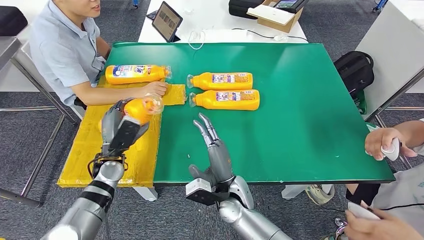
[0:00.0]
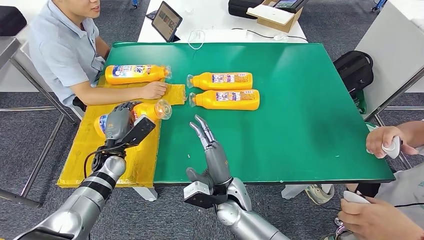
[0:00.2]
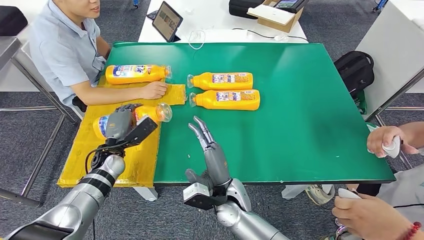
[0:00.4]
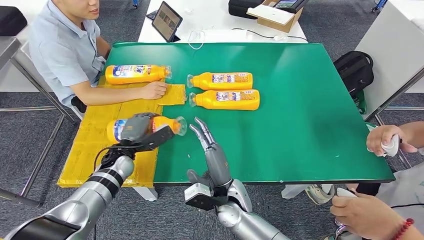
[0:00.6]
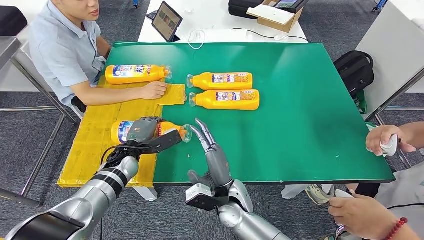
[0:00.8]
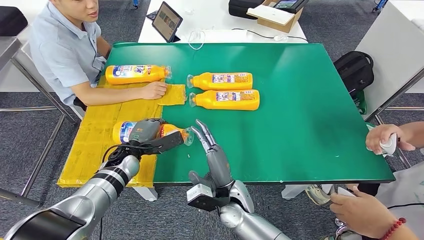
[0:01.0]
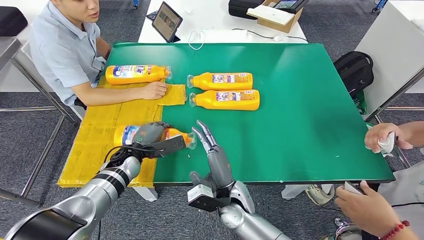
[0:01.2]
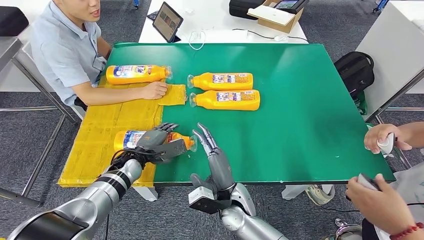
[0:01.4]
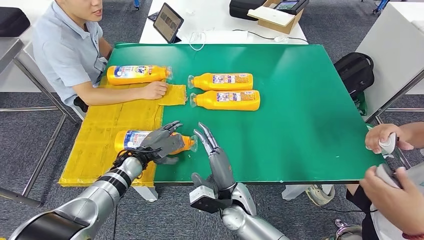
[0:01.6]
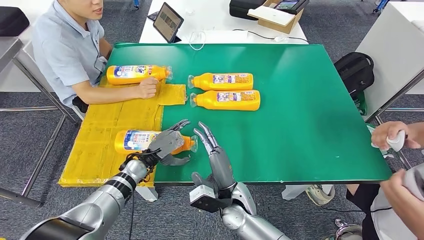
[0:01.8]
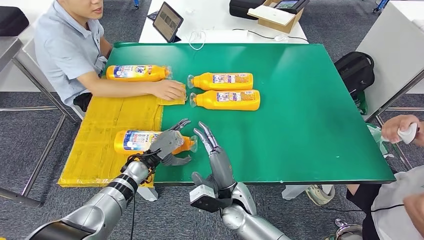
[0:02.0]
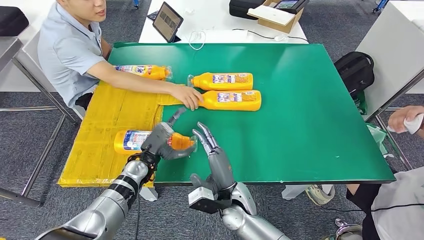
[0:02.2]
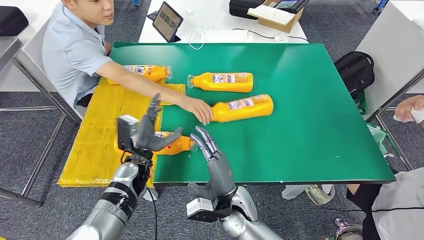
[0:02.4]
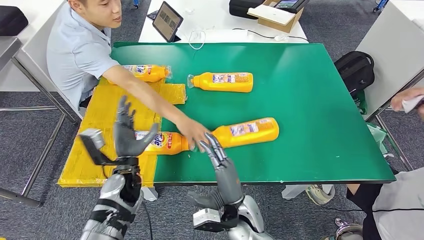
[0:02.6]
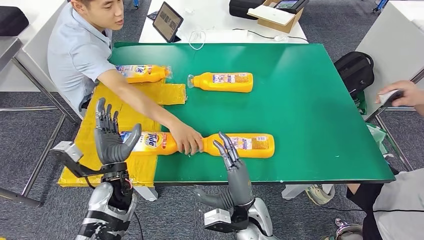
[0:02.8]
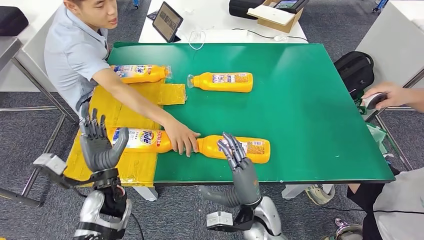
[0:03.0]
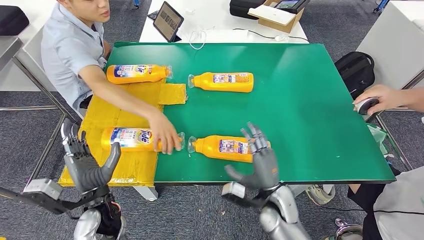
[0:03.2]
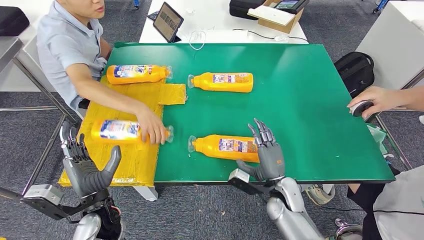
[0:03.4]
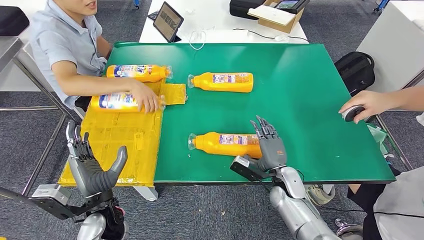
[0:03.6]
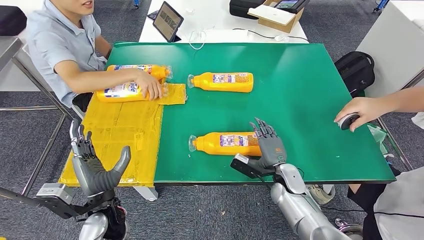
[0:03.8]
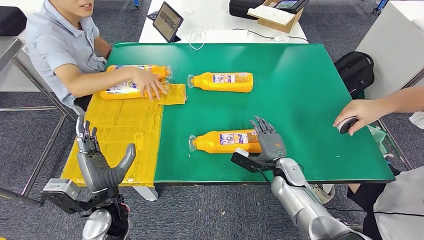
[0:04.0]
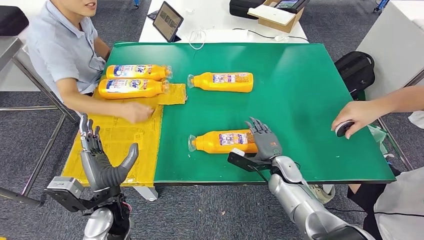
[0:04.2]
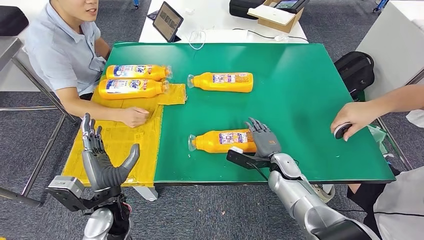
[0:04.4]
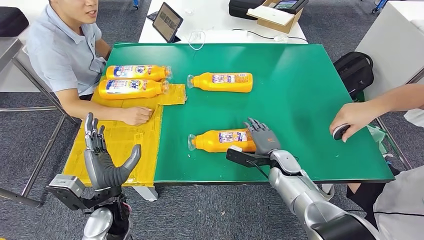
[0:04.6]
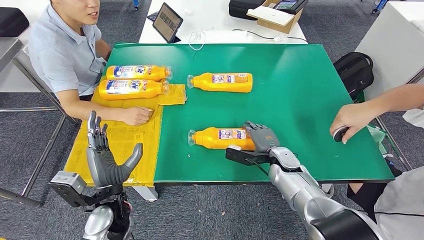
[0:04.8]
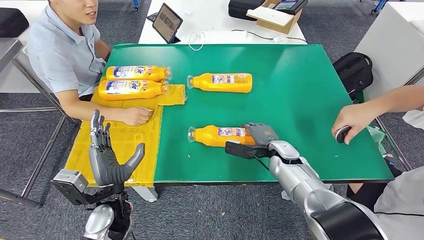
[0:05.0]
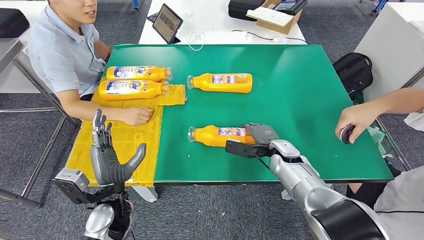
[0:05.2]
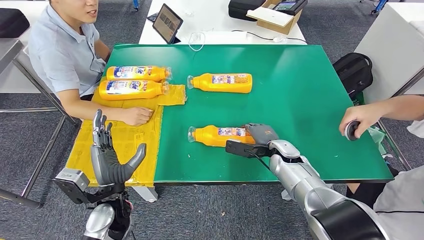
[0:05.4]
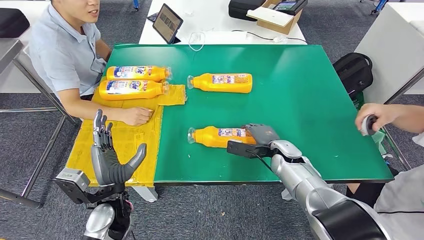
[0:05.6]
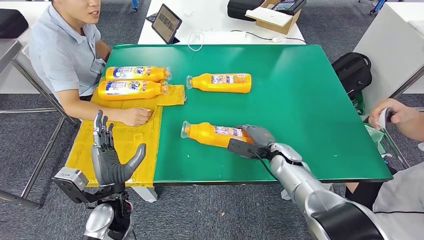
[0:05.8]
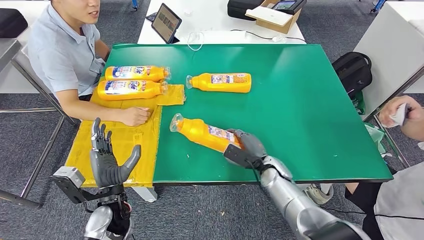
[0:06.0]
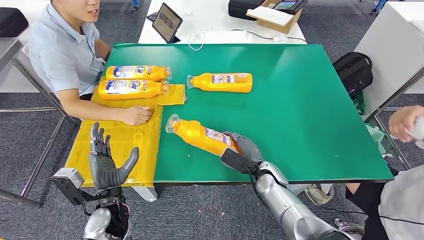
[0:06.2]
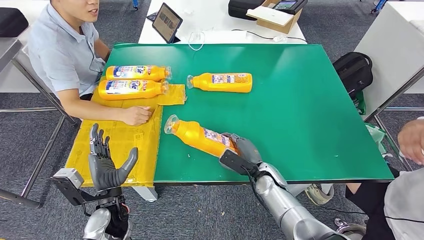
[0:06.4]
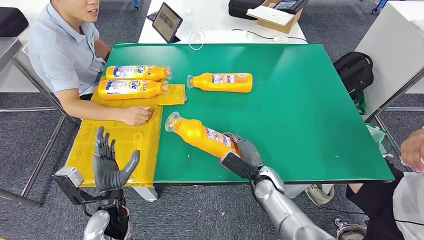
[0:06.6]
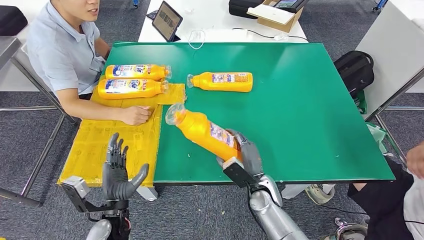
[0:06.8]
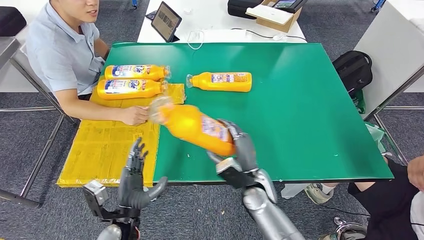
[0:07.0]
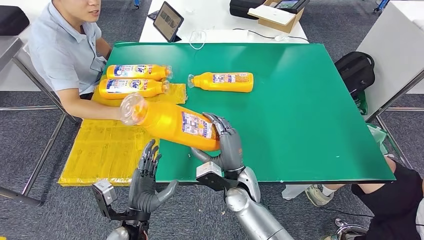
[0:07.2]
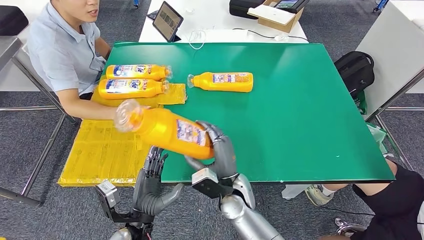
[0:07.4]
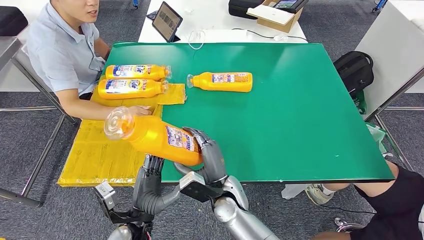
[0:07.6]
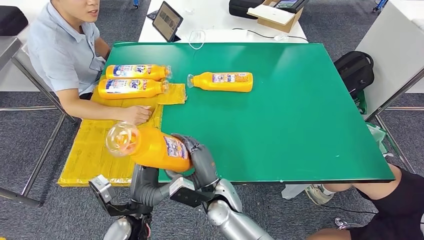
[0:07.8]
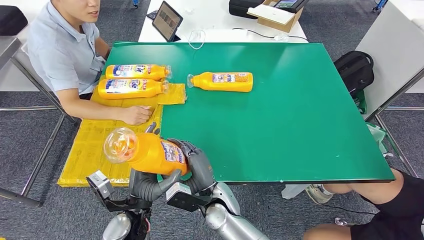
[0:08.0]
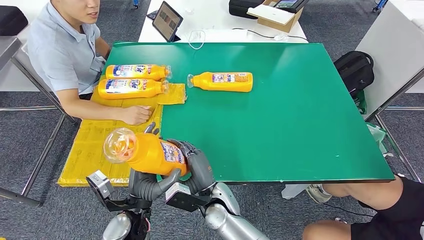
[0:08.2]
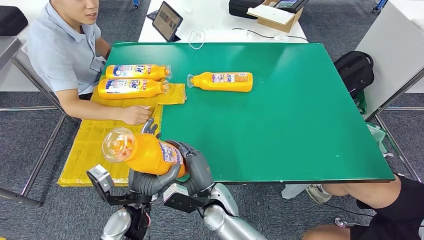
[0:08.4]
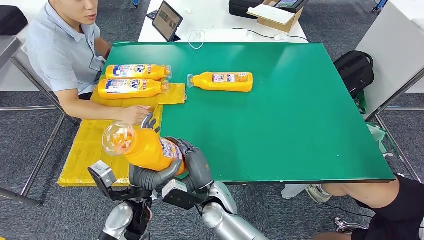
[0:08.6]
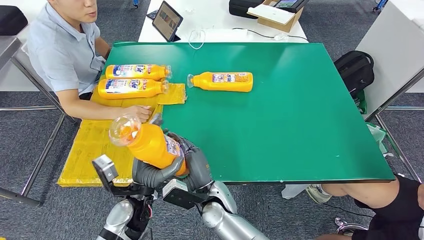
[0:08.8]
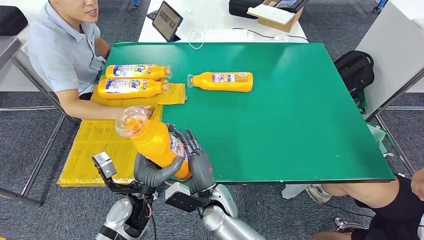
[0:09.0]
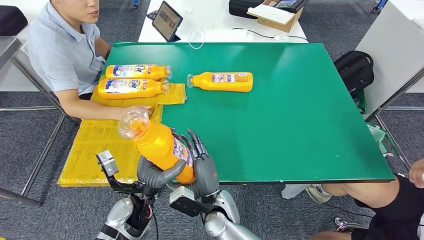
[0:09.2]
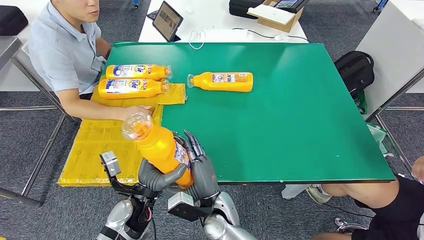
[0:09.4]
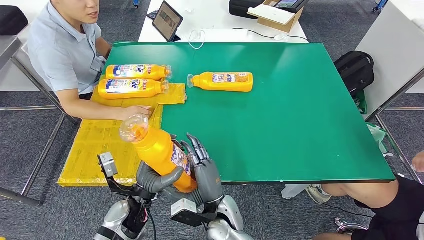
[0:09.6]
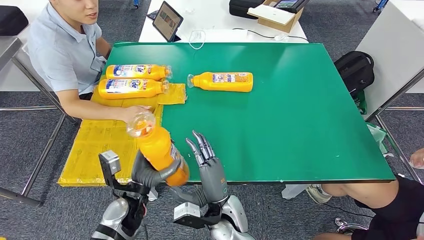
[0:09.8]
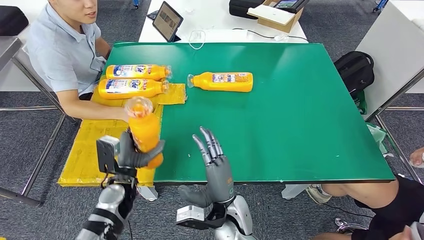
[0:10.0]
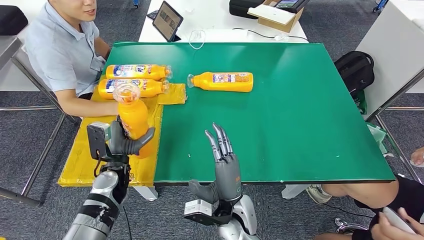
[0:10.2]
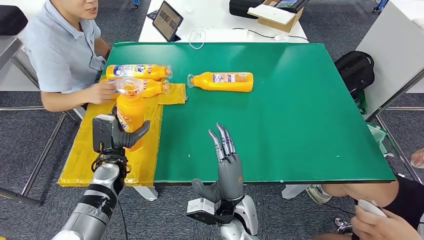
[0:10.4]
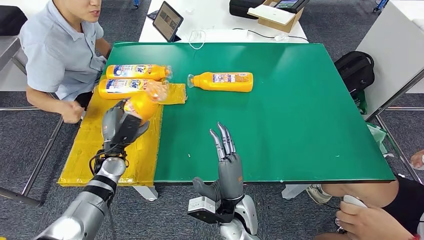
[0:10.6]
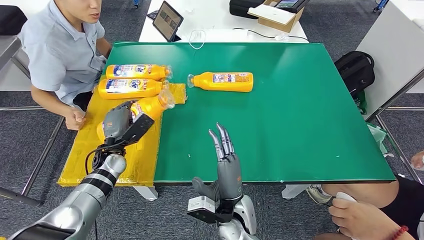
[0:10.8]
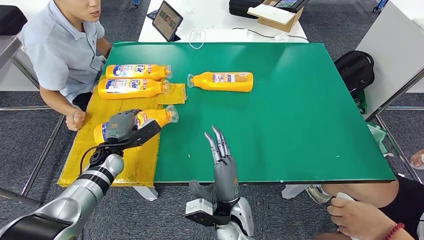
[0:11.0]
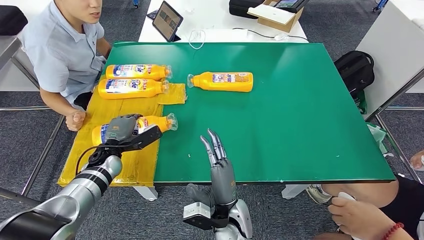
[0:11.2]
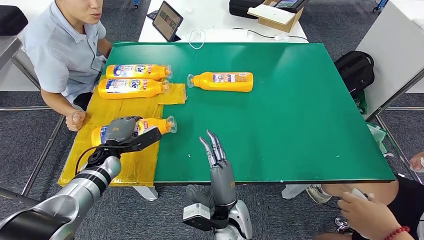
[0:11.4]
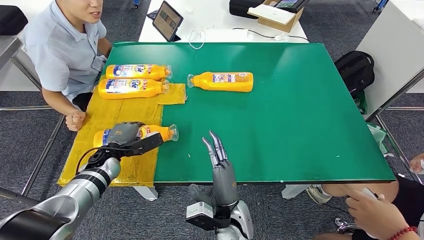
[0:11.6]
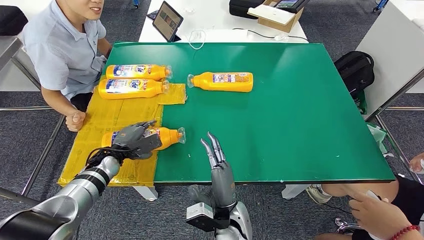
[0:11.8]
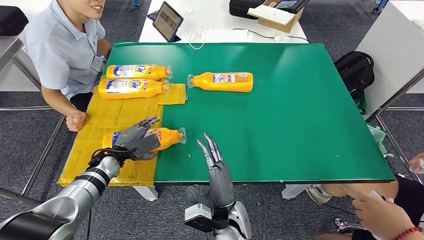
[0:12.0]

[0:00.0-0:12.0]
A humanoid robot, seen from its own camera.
Step, 0:00.0 to 0:02.8: Flip the fast-moving consumer goods bottle to the front side.
Step, 0:03.0 to 0:08.8: Pick up the fast-moving consumer goods bottle from the table.
0:07.6 to 0:09.0: The left hand shifts approximately 5 cm forward.
0:10.4 to 0:12.0: The left hand moves approximately 5 cm.

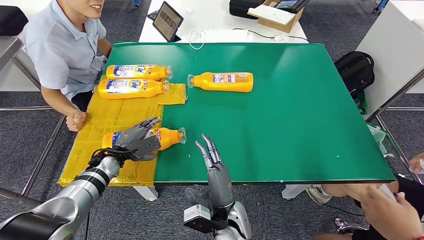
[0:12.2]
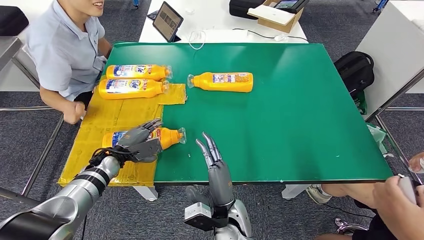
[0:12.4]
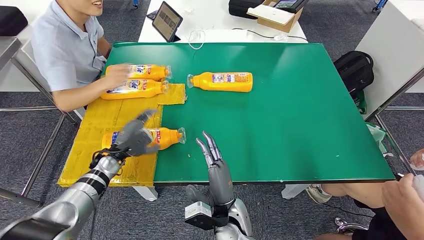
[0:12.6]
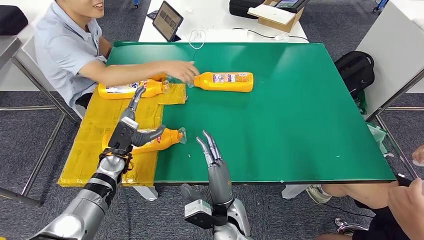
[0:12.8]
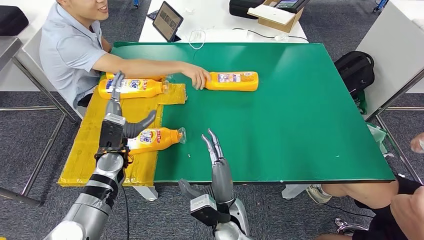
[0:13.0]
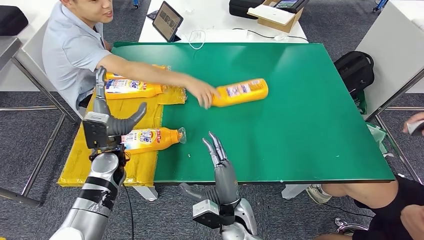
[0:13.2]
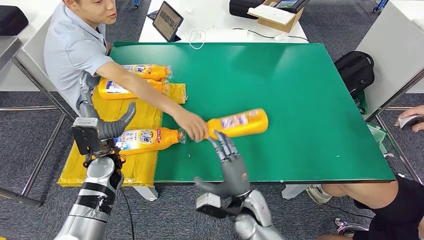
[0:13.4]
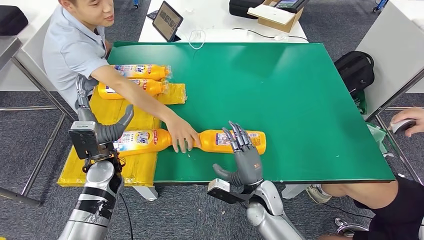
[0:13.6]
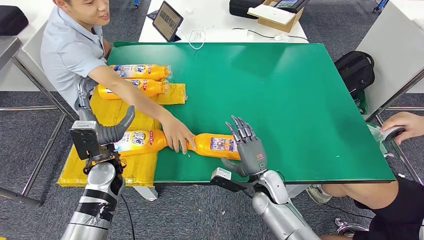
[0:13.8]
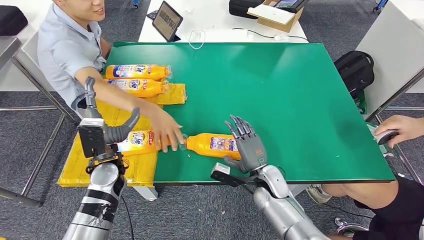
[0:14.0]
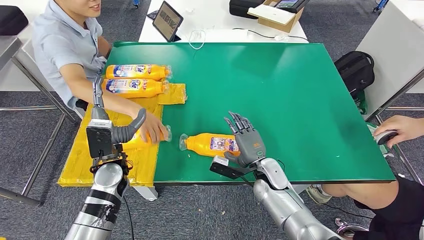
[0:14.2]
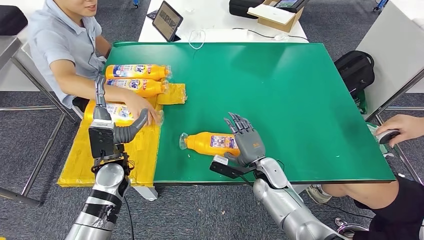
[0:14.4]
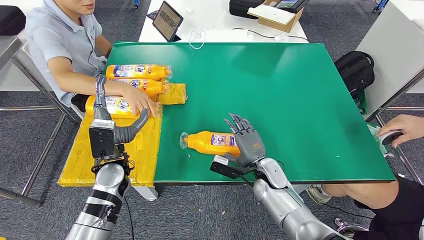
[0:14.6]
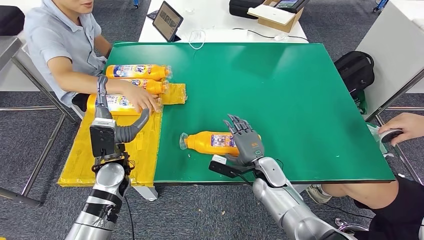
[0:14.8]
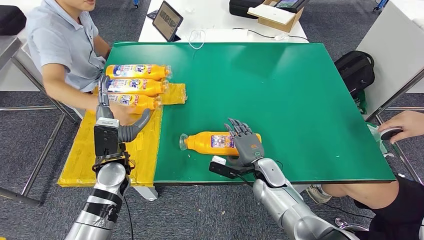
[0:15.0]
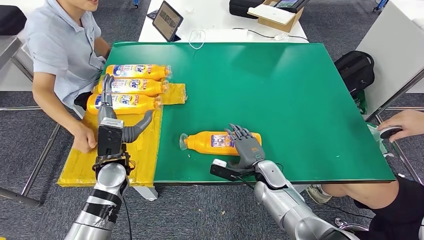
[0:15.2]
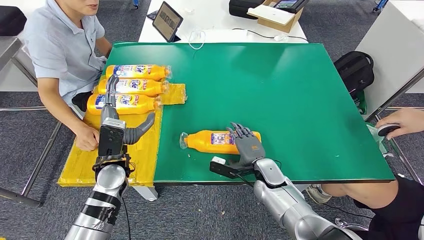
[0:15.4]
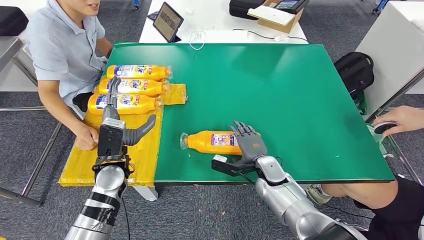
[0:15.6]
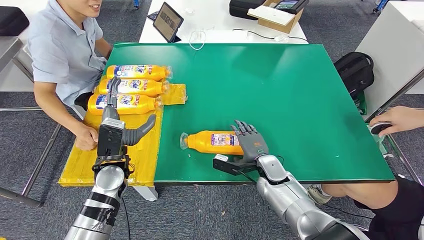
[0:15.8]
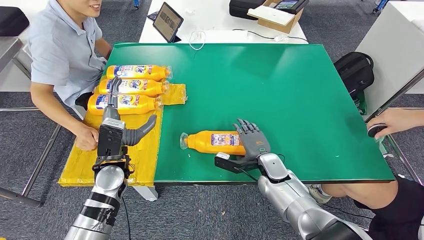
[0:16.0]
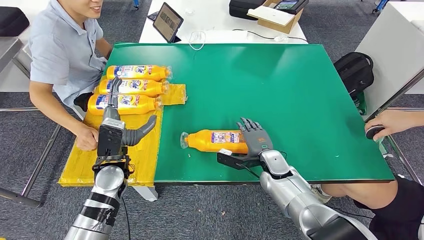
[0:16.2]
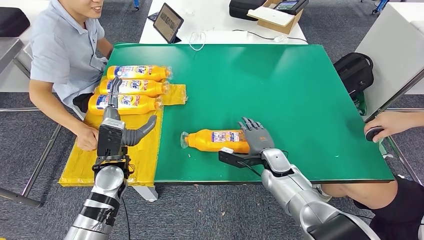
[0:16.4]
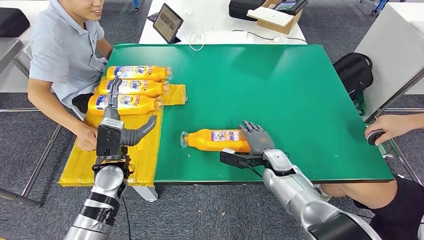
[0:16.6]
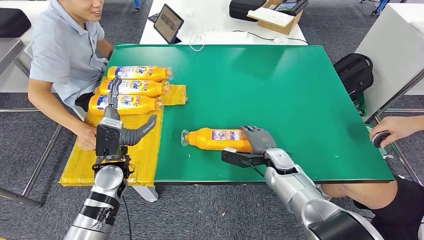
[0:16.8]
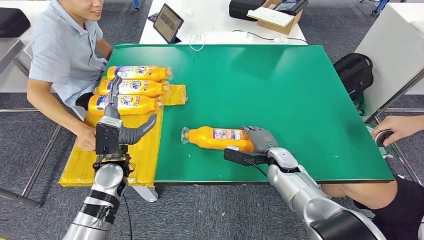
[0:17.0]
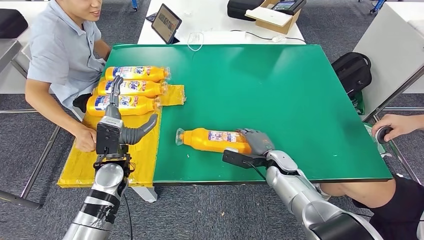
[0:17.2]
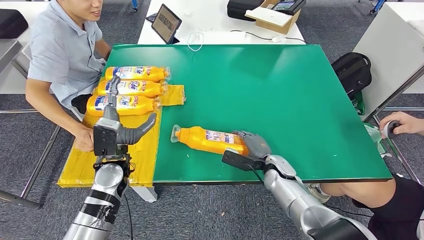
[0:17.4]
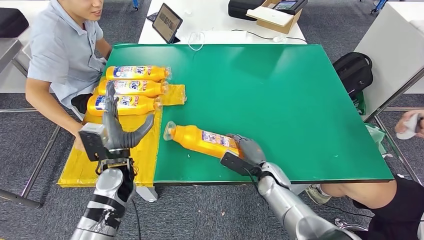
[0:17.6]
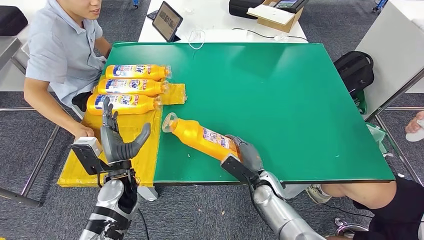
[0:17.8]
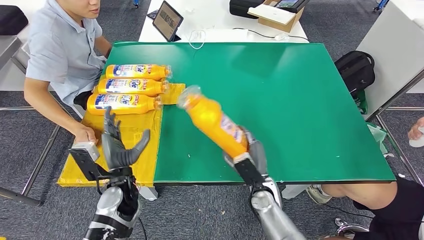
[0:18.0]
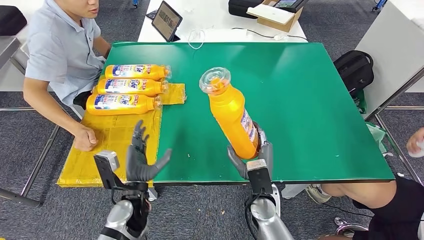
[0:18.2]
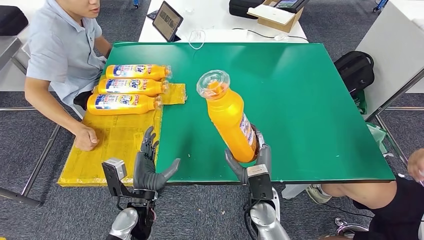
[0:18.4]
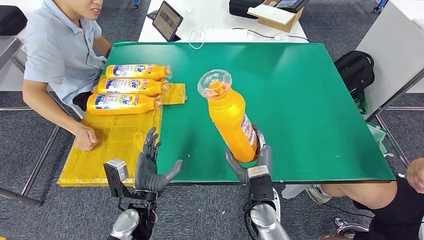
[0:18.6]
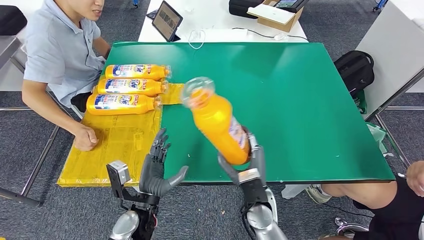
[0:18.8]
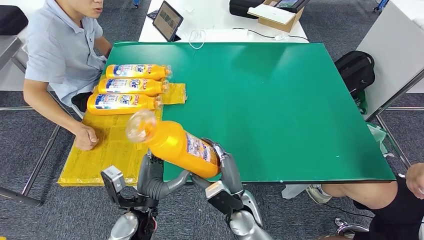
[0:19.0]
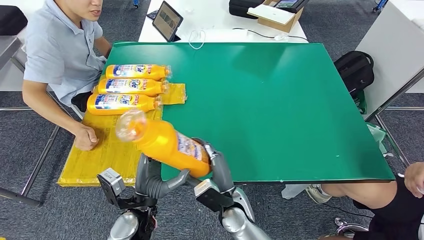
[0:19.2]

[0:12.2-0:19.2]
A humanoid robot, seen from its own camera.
0:17.8 to 0:19.2: The right hand shifts about 10 cm to the left and backward. The left hand travels backward and to the right by about 10 cm.
